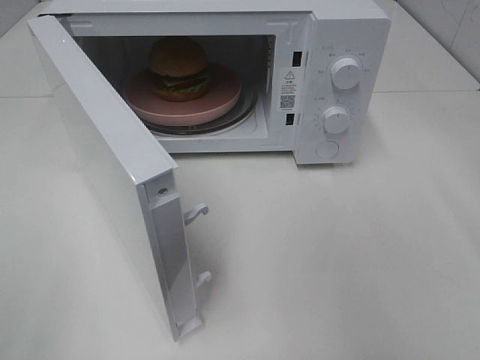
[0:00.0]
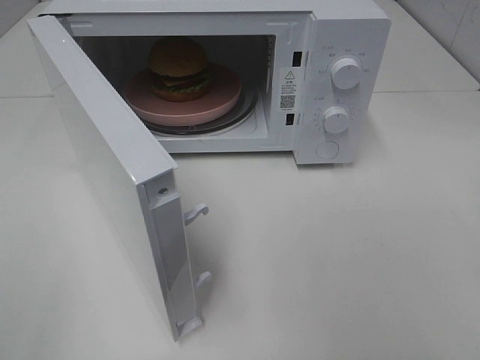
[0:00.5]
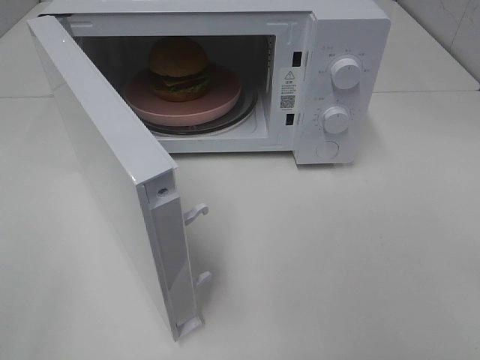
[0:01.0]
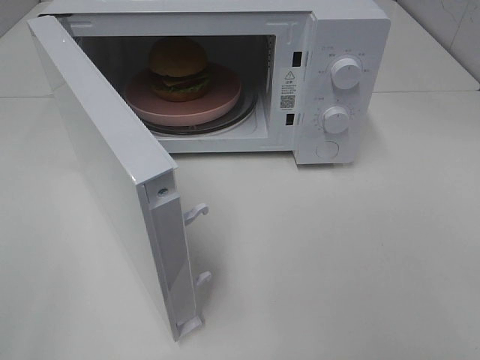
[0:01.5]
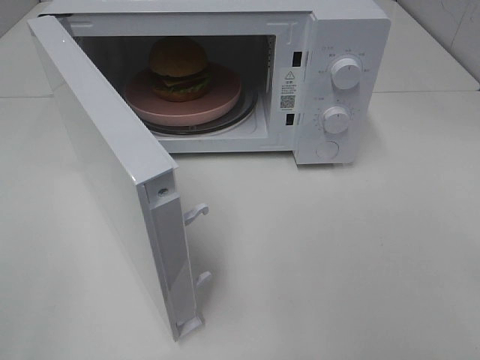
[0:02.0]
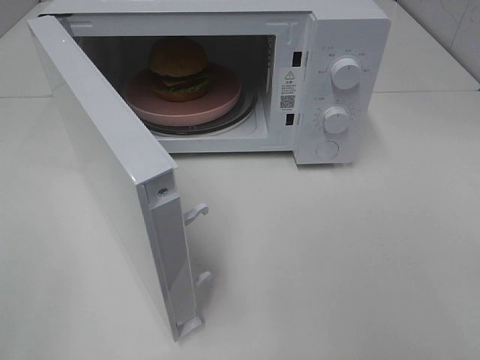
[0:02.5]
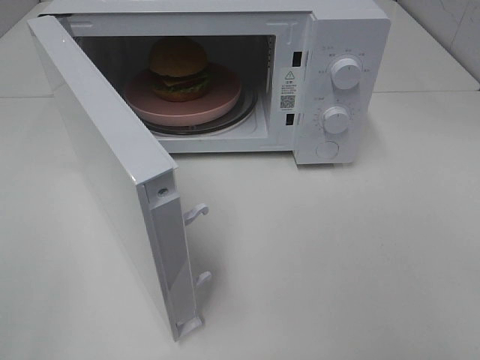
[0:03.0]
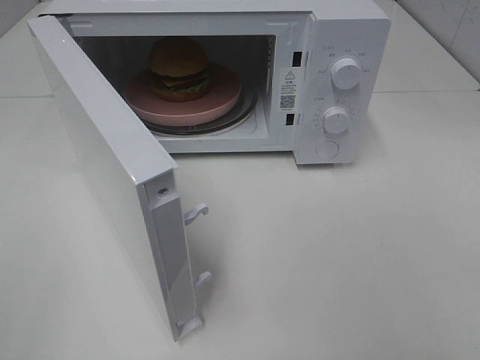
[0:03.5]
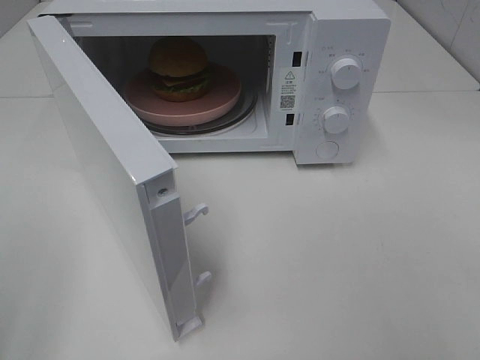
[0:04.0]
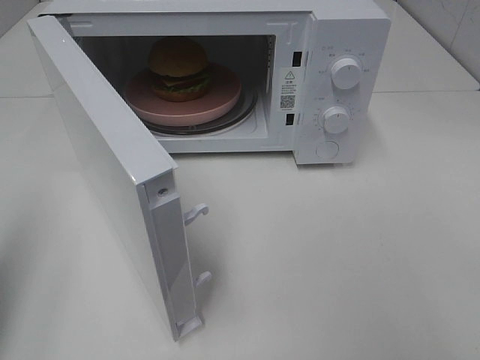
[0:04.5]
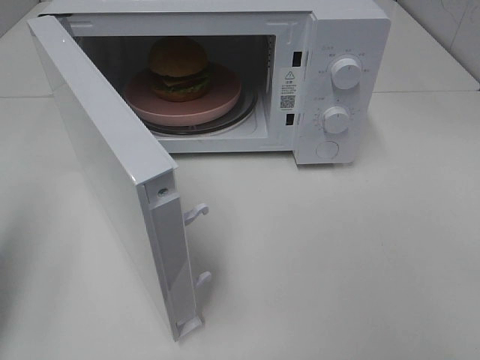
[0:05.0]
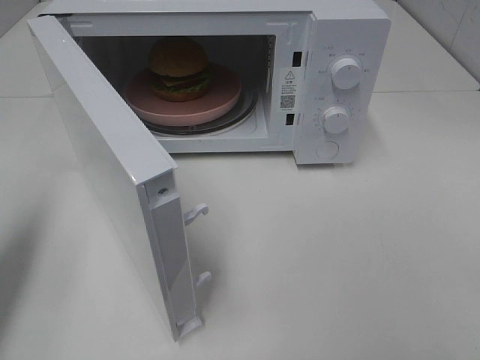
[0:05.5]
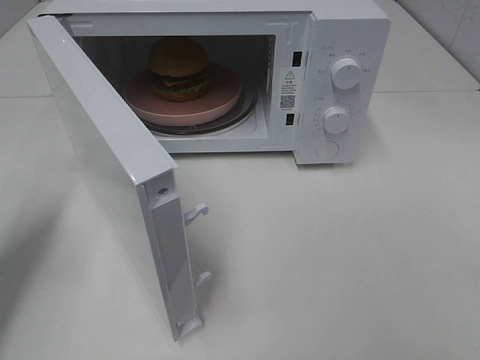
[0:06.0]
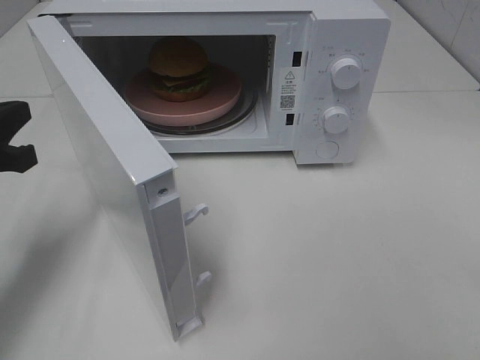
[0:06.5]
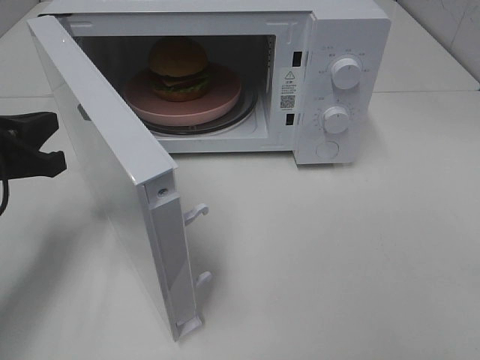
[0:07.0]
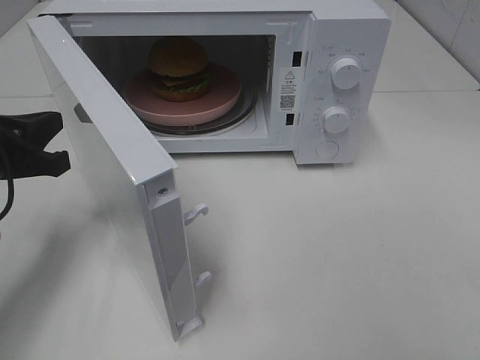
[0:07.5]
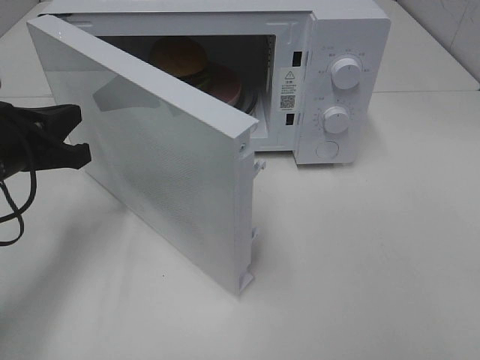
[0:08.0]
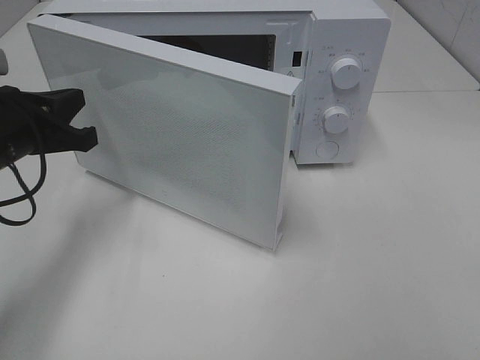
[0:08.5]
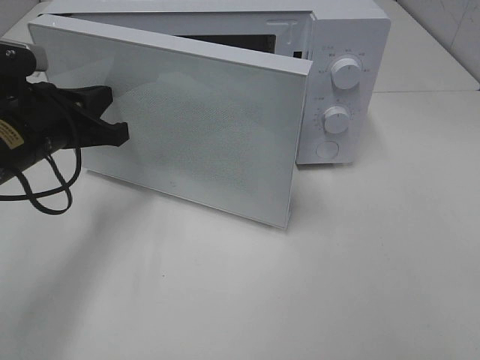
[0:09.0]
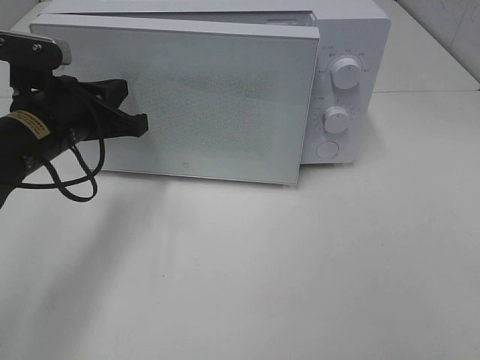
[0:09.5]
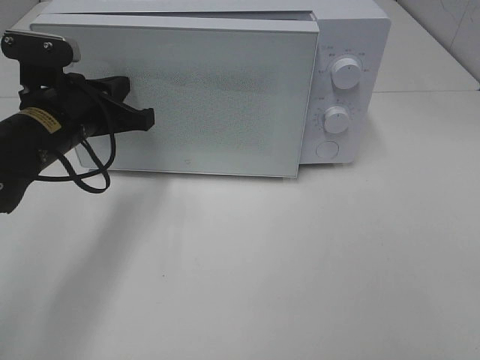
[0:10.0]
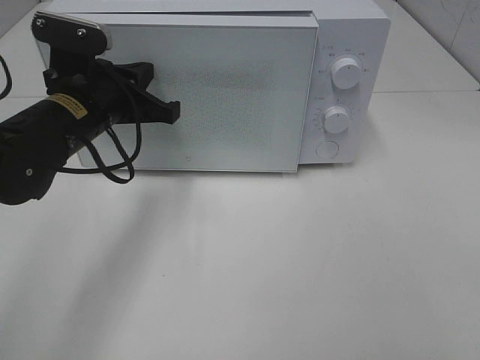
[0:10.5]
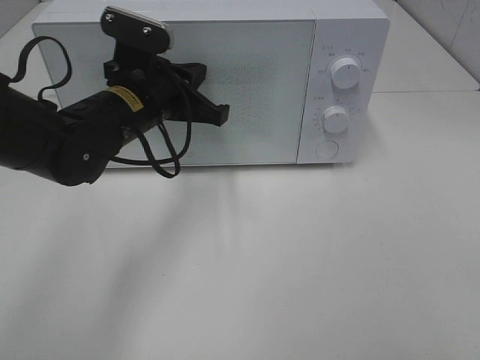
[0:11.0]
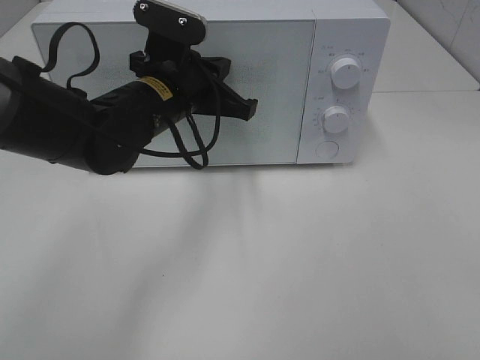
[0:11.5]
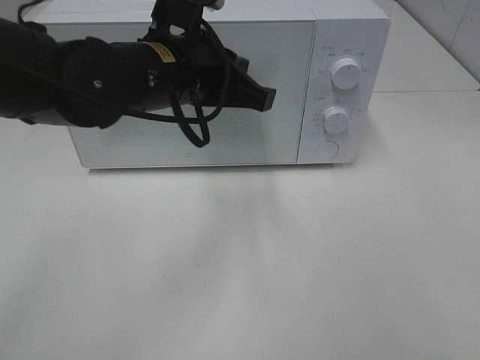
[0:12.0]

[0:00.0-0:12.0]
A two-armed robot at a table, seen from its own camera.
Task of the whole recording: Heat the burger.
Step, 0:00.0 to 0:11.0: Left hand: close the microwave door.
0:04.0 to 0:06.0: The left gripper moves forward and downward, some 20 cm, and closes up.
0:06.0 to 0:08.0: The left gripper shifts roughly 5 cm to the right.
0:08.0 to 0:10.0: The left gripper is displaced to the right and forward by roughly 10 cm.
0:10.0 to 0:12.0: The left gripper is displaced to the right and upward by about 15 cm.

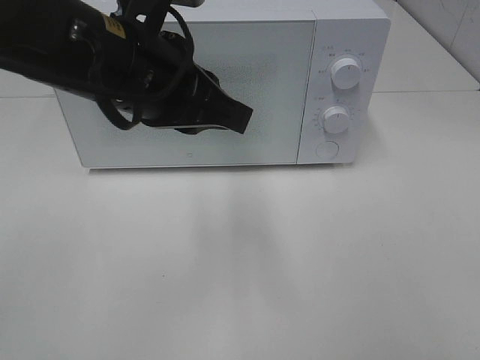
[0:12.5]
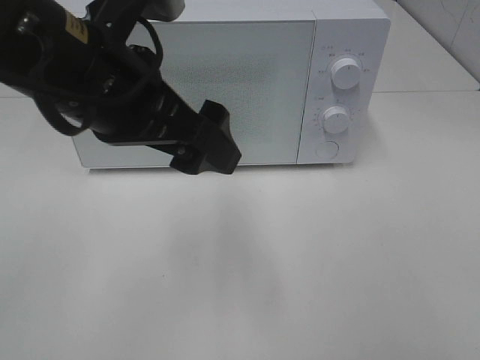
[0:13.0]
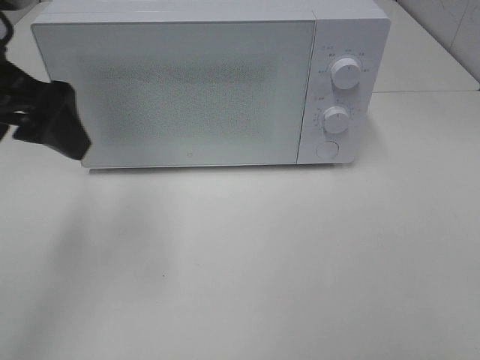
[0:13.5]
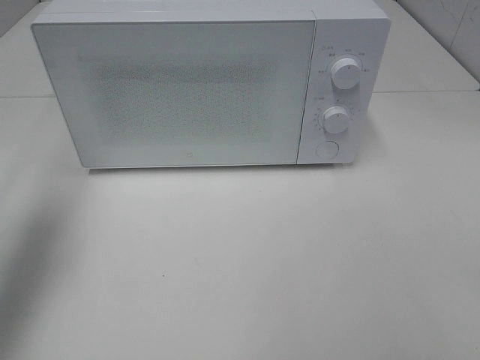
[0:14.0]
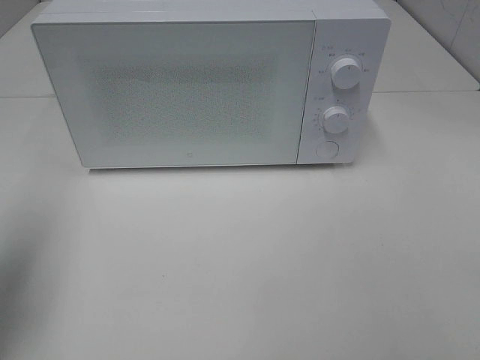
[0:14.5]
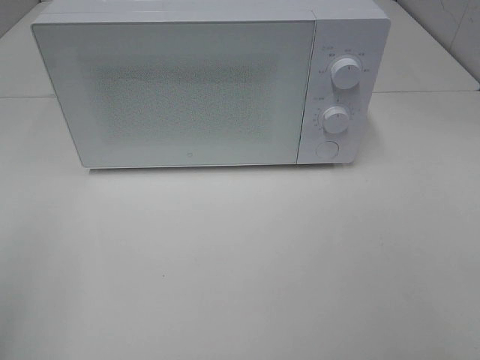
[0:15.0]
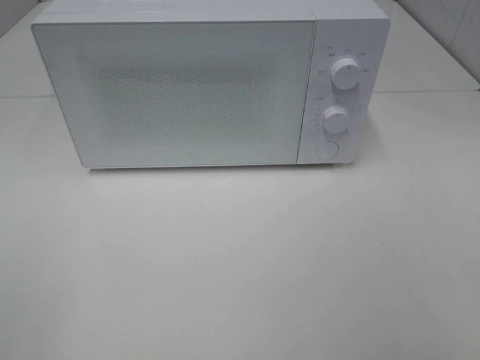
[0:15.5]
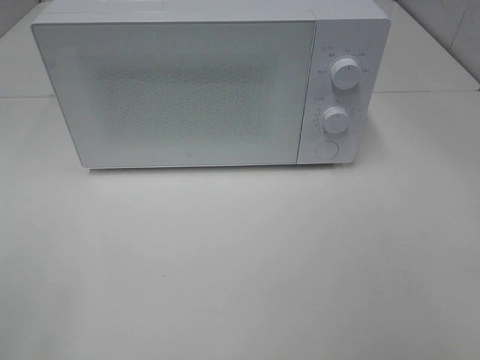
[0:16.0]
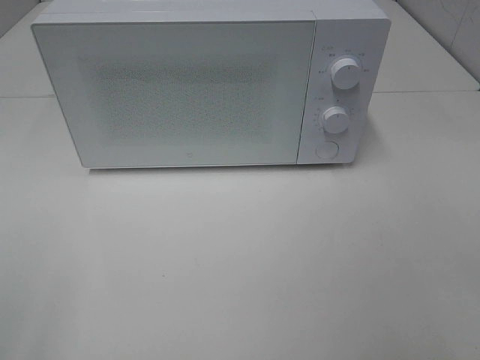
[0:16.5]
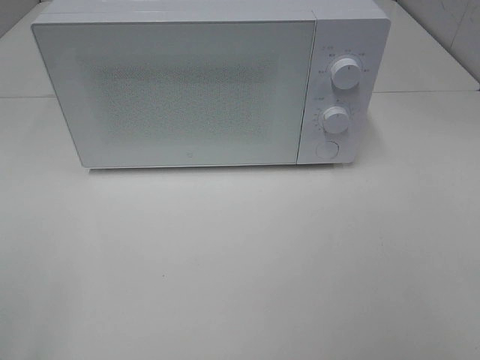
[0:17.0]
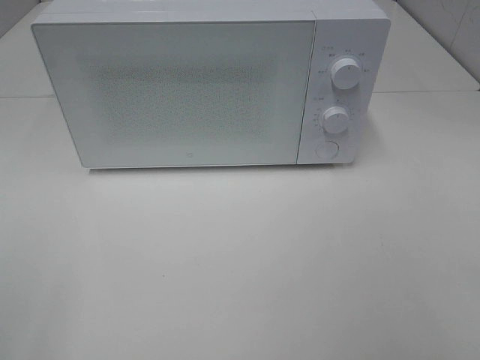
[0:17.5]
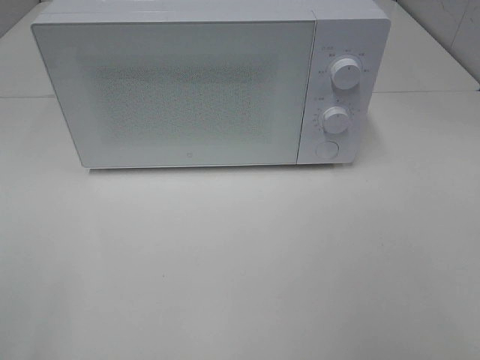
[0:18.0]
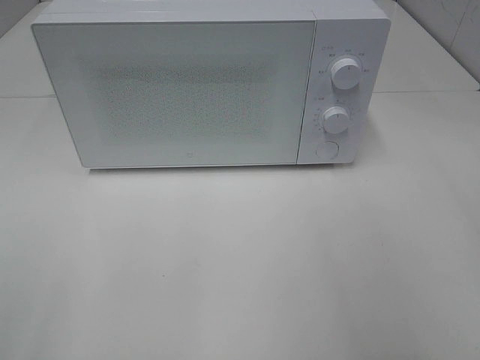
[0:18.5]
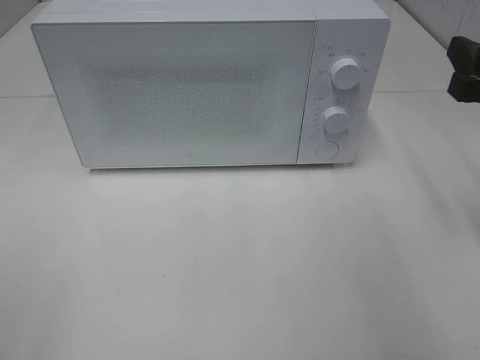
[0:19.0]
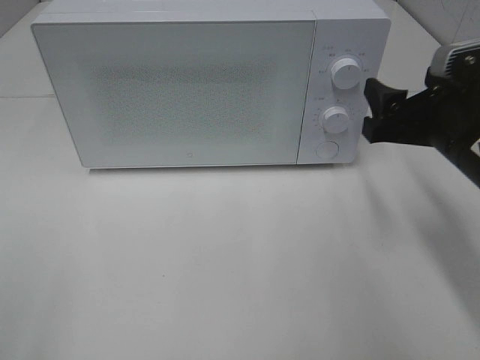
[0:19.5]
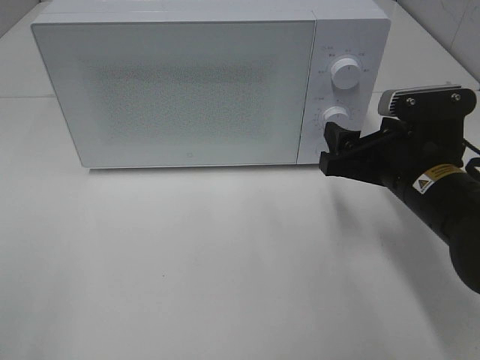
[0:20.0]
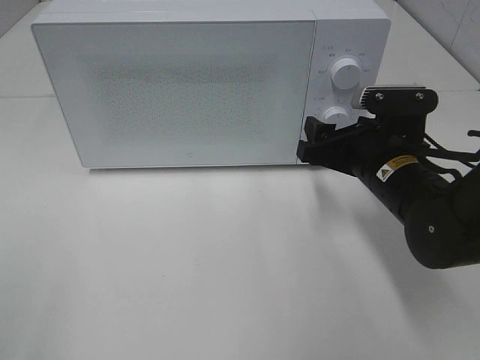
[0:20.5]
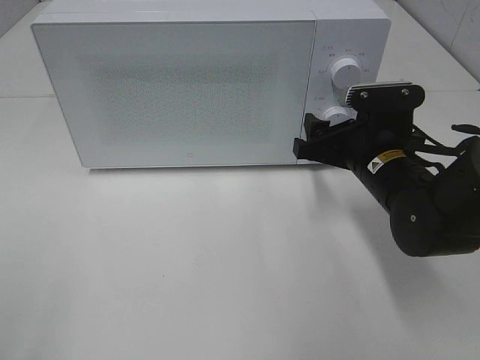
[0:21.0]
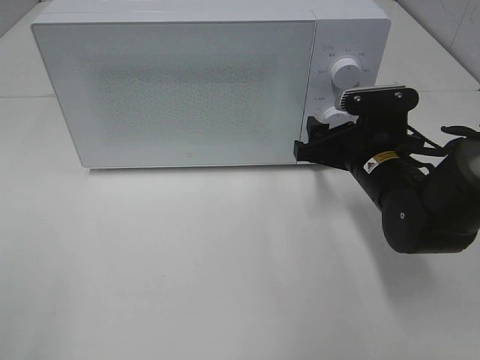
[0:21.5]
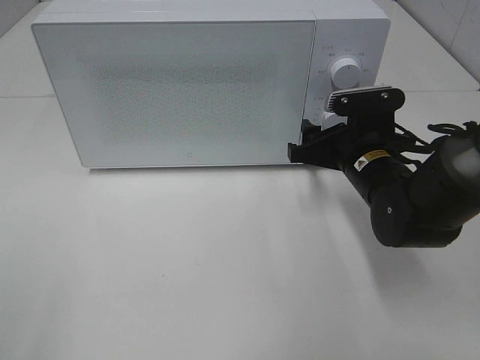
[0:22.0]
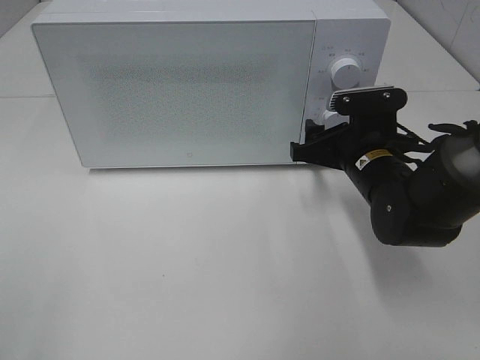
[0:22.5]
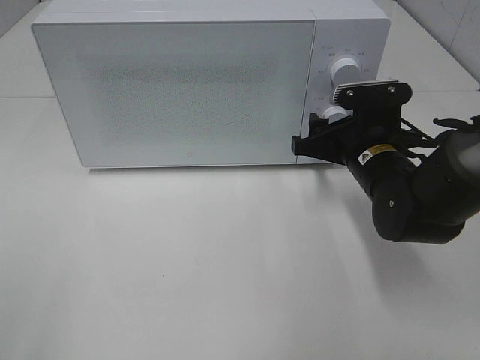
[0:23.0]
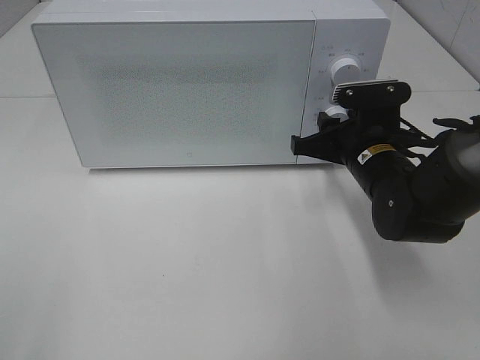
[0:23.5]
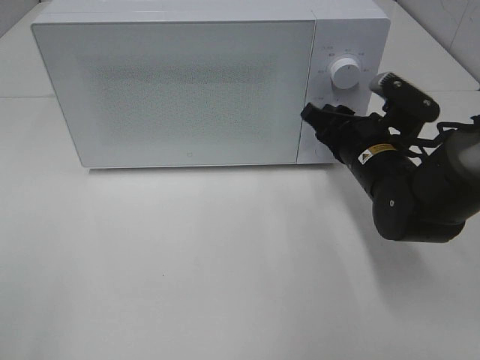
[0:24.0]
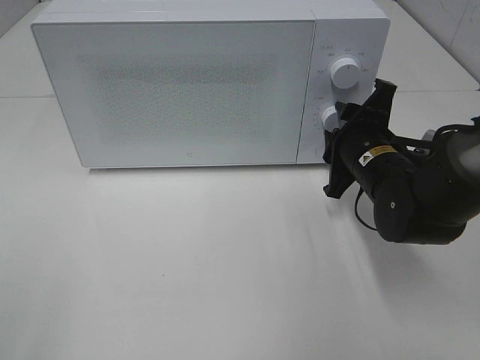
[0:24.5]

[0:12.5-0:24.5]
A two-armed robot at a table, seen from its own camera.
Task of the whole recording: Heat the burger.
0:12.5 to 0:14.5: The left gripper moves to the left, approximately 25 cm, and opens its fingers.
0:14.5 to 0:16.5: The left gripper heads backward, covering approximately 20 cm.
0:18.5 to 0:20.5: The right gripper shifts about 25 cm downward, forward and to the left.
0:20.5 to 0:22.5: There are only small adjustments of the grippers.

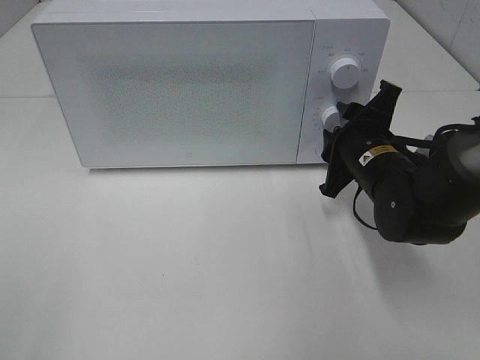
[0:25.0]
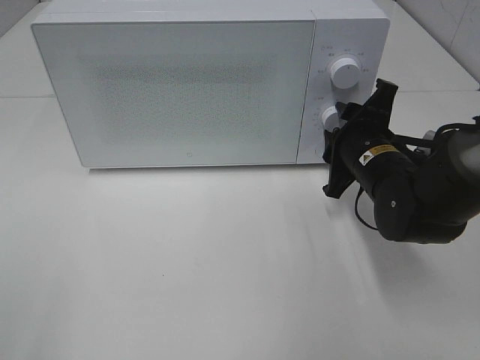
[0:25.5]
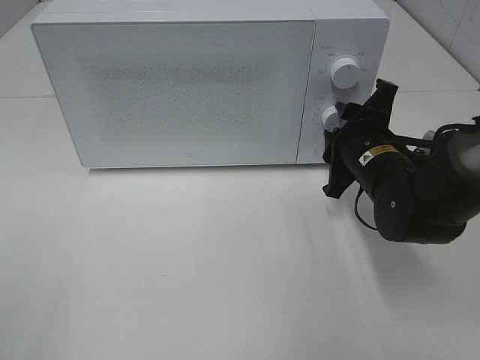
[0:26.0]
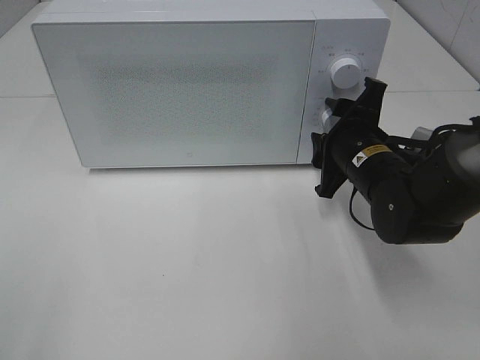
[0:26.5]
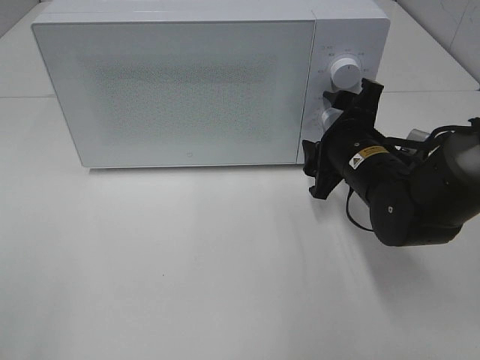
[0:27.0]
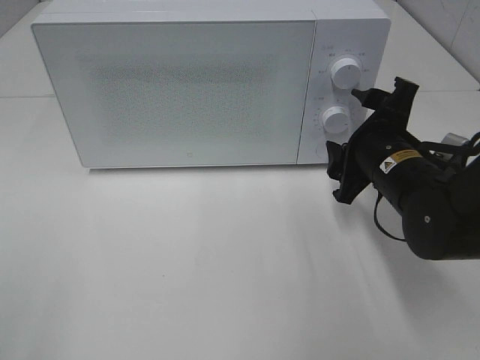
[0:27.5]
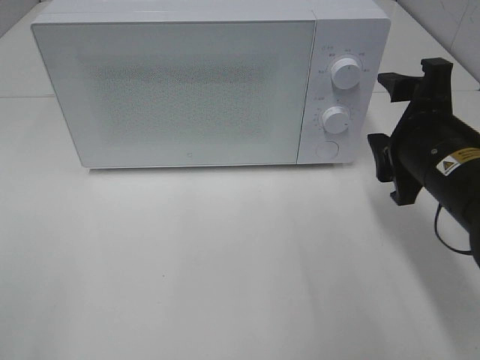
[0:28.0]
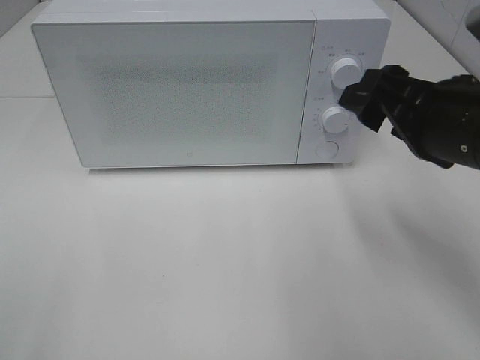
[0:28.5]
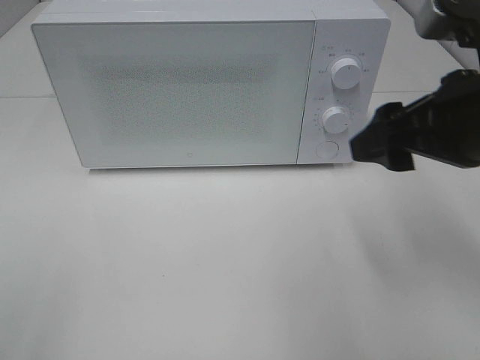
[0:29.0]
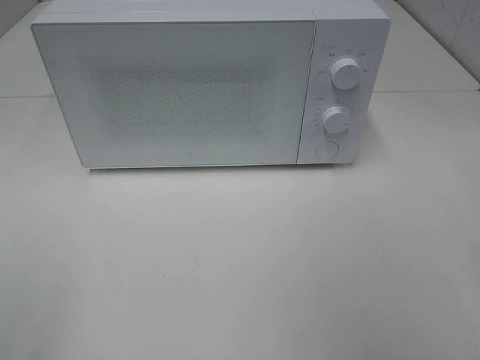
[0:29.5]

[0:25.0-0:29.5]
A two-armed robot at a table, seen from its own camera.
Task of the whole recording: Heat the burger.
0:25.0 to 0:27.0: The grippers make only small movements.
0:27.0 to 0:29.5: The right gripper moves upward, to the right and backward, about 30 cm.
